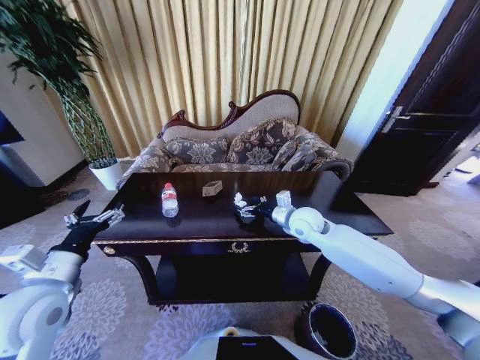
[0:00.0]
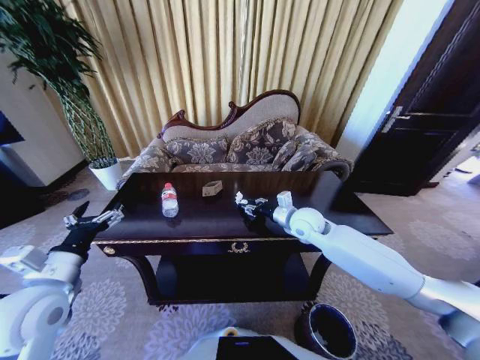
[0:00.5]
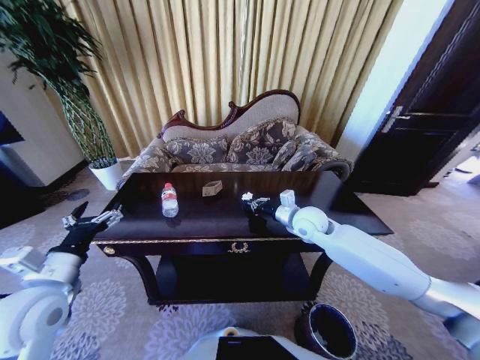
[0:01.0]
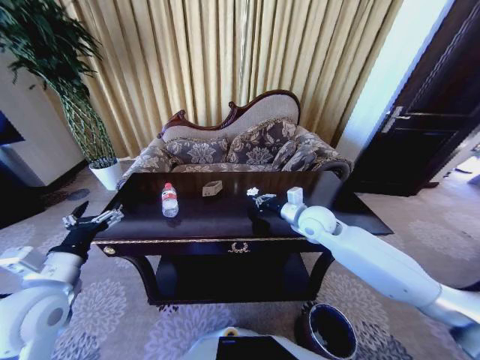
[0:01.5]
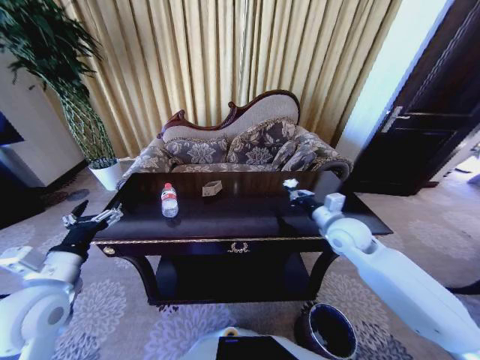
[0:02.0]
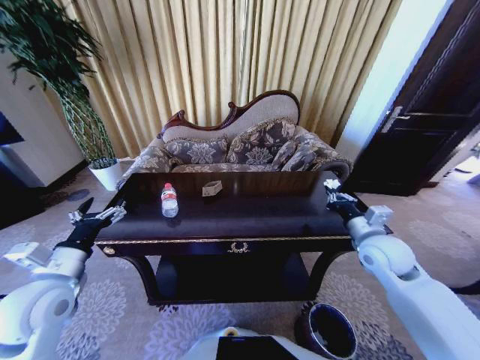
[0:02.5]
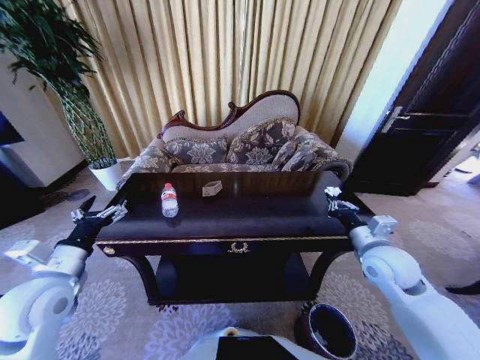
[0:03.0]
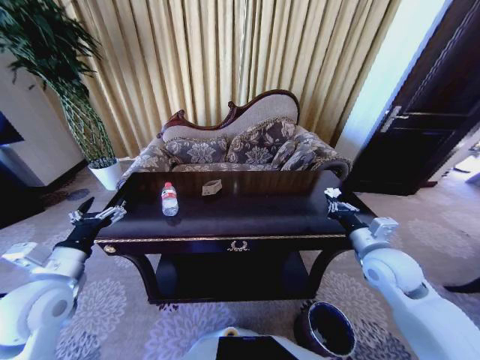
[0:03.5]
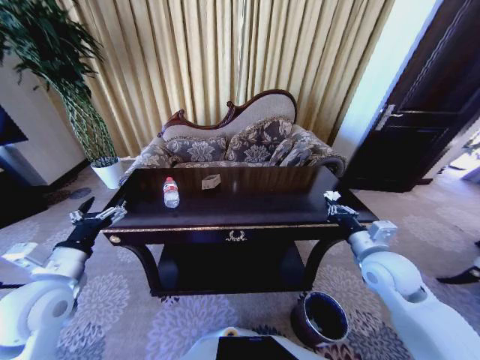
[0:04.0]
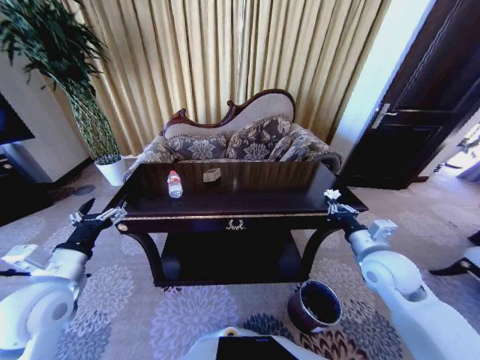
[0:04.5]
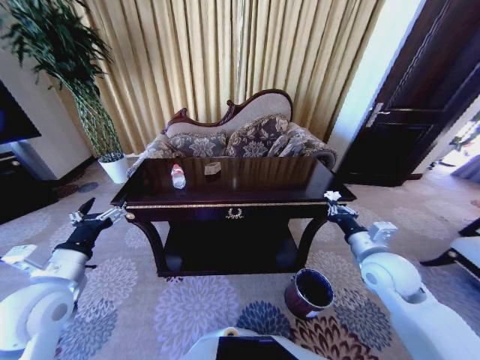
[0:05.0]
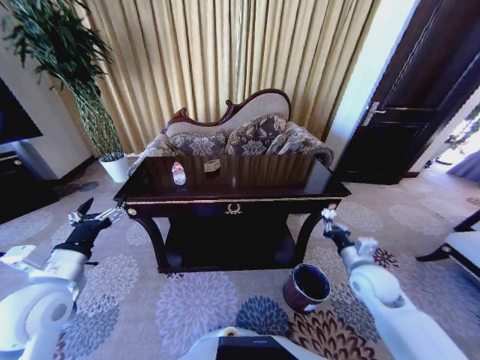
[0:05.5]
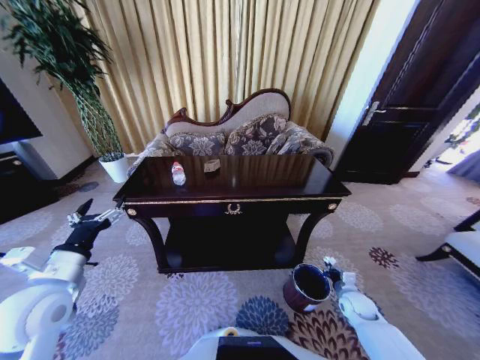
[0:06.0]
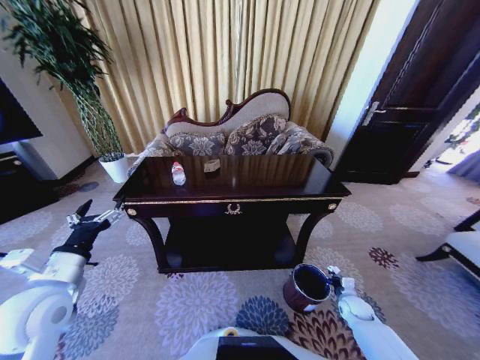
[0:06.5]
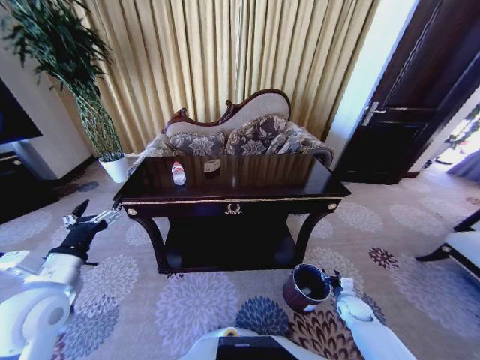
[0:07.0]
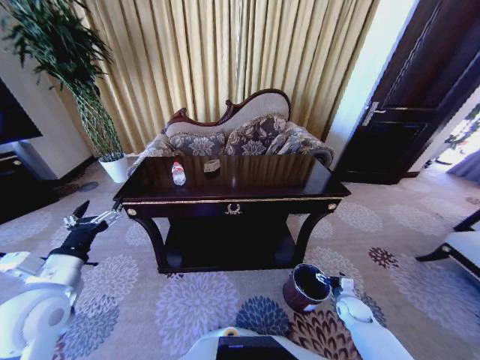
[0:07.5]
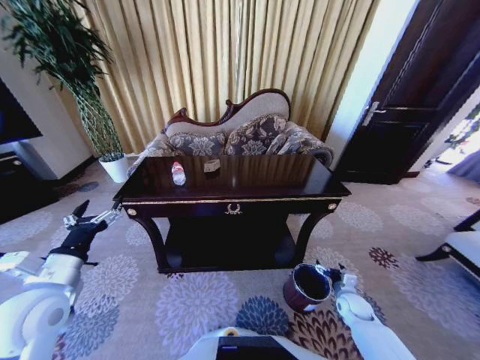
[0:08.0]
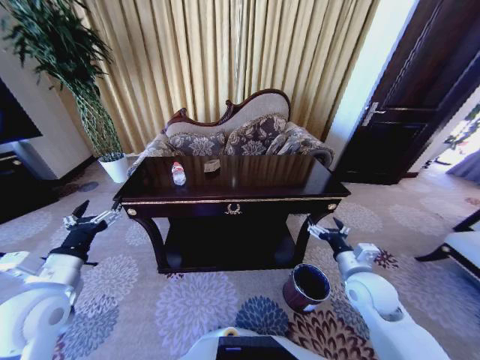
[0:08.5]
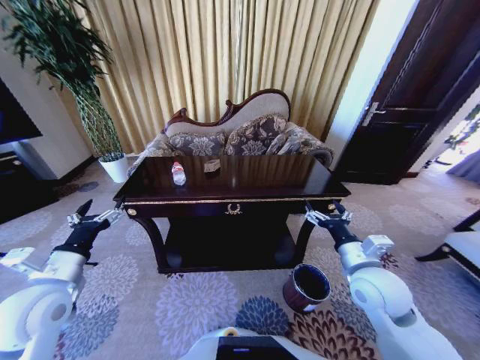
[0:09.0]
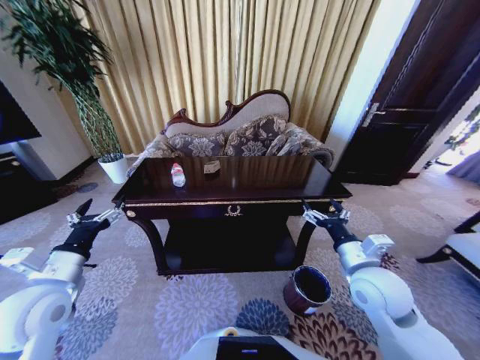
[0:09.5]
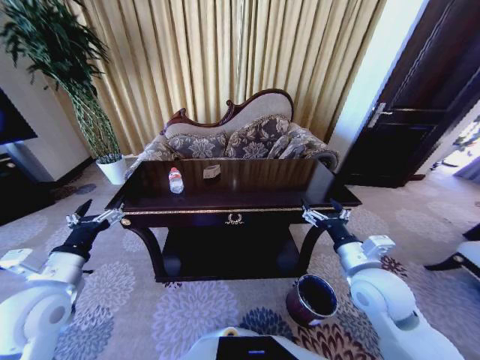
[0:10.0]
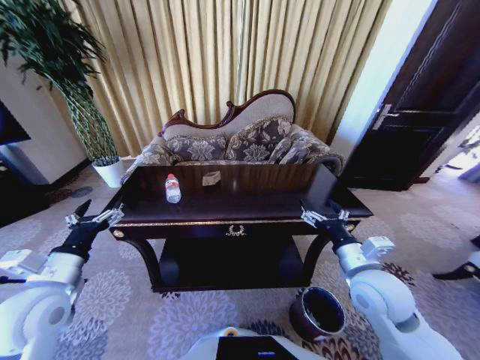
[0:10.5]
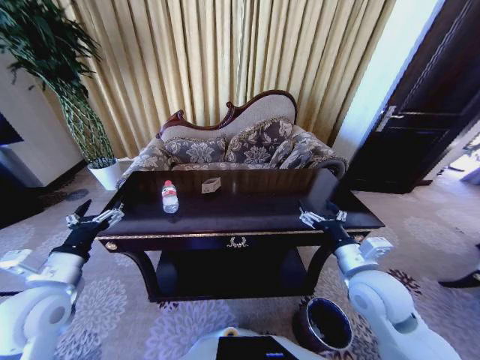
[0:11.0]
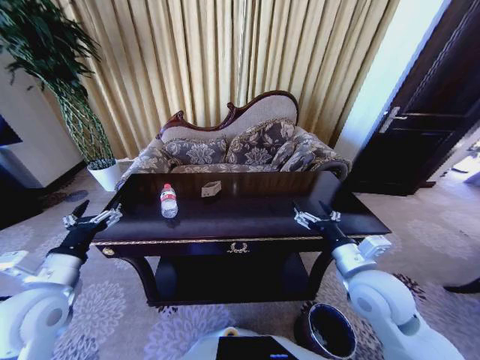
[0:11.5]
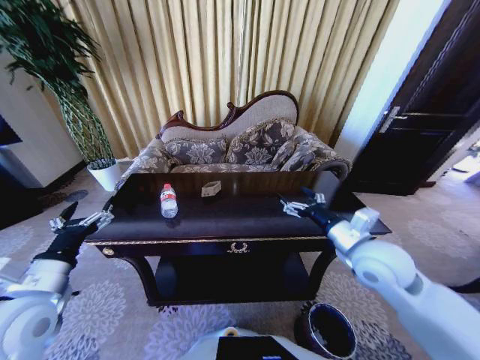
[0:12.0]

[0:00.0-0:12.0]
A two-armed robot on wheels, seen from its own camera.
Task of the whole recording: Move to the front of the table and place the trash on the table into the trash bin.
0:00.0 to 0:02.0: The right gripper goes some 10 cm to the right and backward, and closes its fingers.
0:02.0 to 0:04.0: The right gripper goes roughly 10 cm backward.
0:04.0 to 0:06.0: The right gripper moves downward, about 25 cm.
0:06.0 to 0:08.0: The right gripper opens its fingers.
0:08.0 to 0:10.0: The right gripper is displaced upward and to the left by some 30 cm.
0:10.0 to 0:12.0: The right gripper ends up about 5 cm from where it was.

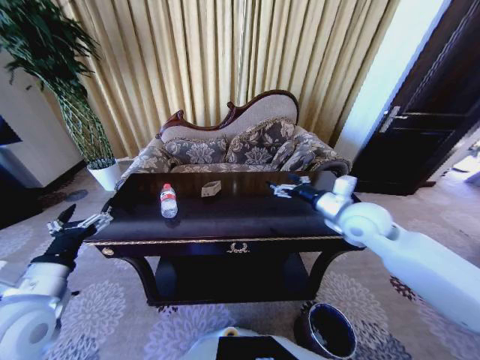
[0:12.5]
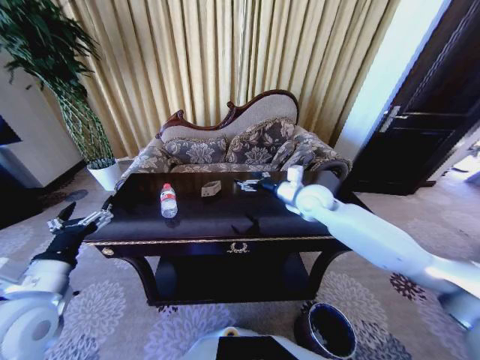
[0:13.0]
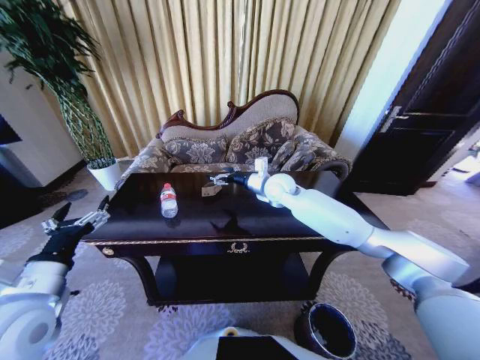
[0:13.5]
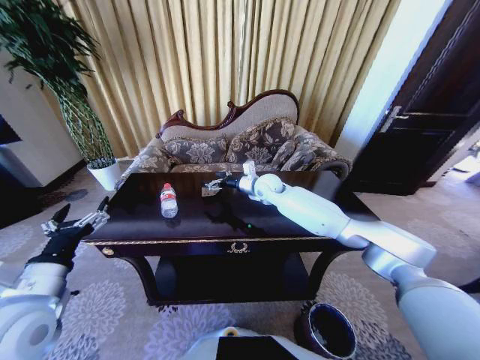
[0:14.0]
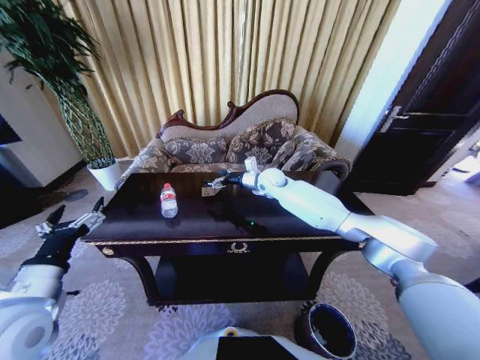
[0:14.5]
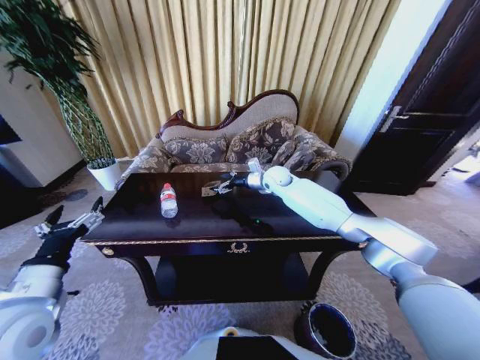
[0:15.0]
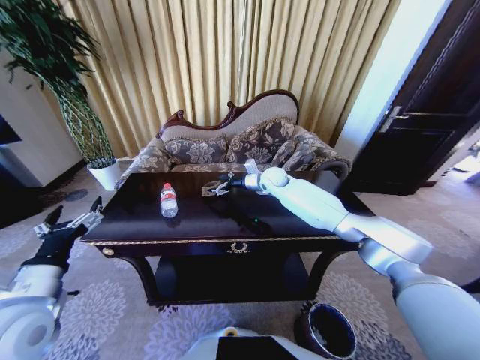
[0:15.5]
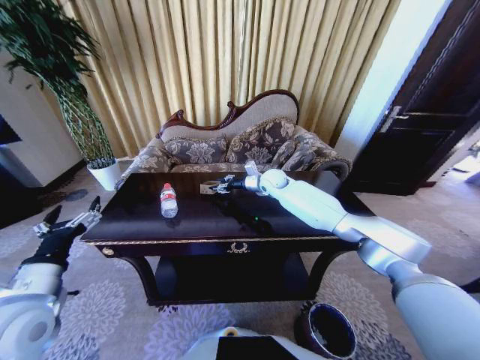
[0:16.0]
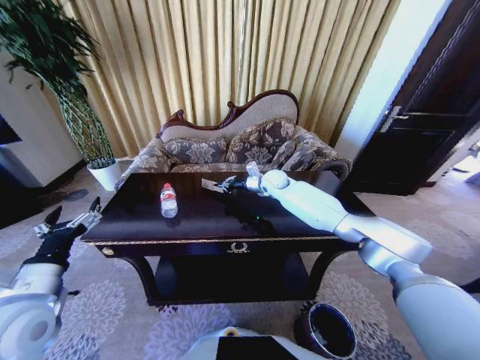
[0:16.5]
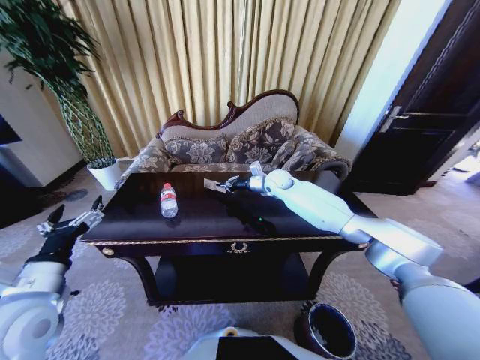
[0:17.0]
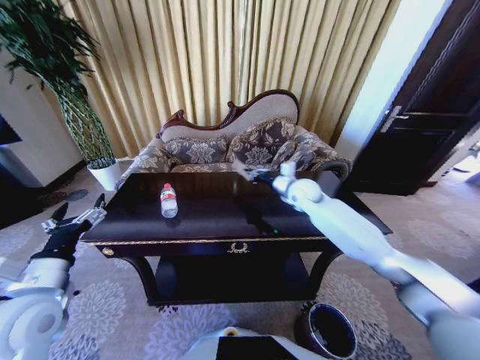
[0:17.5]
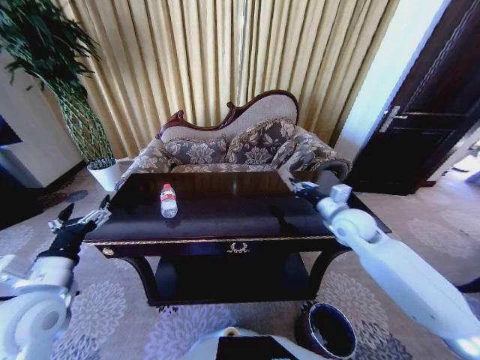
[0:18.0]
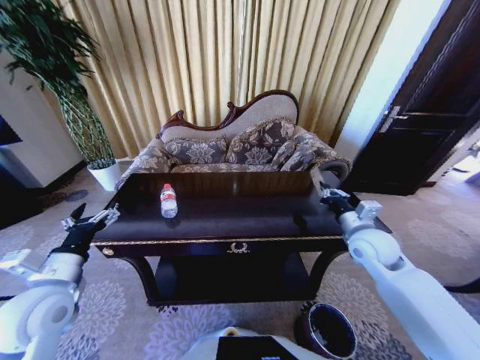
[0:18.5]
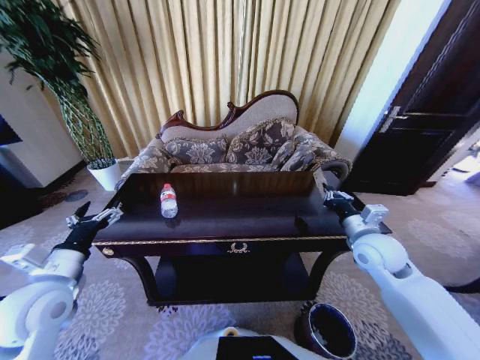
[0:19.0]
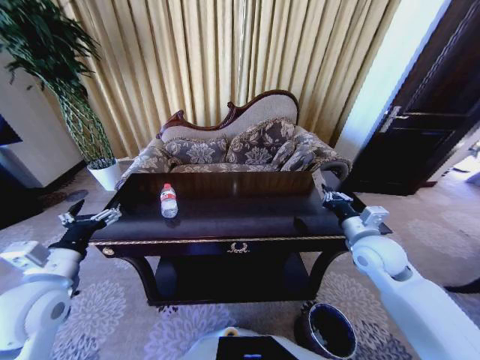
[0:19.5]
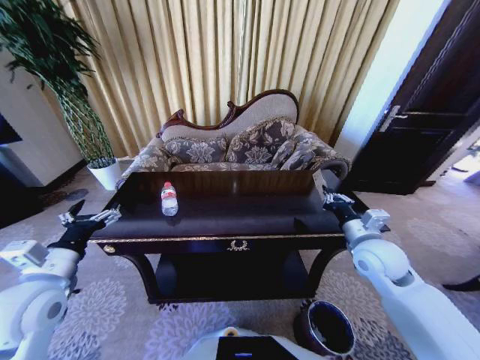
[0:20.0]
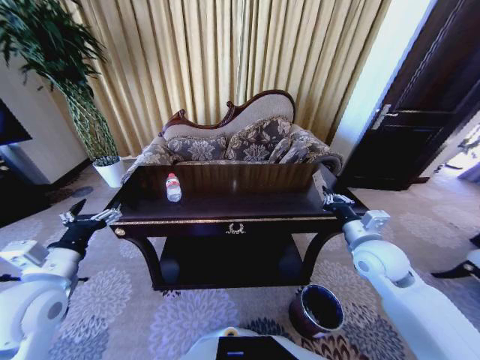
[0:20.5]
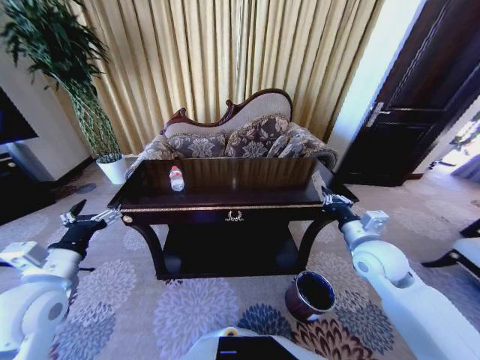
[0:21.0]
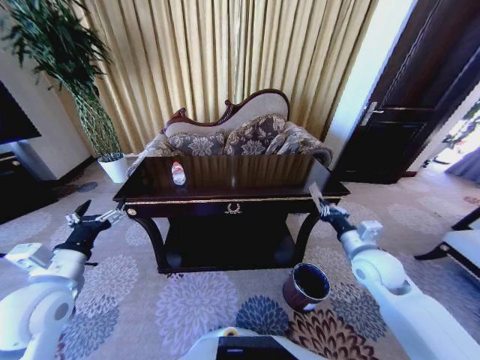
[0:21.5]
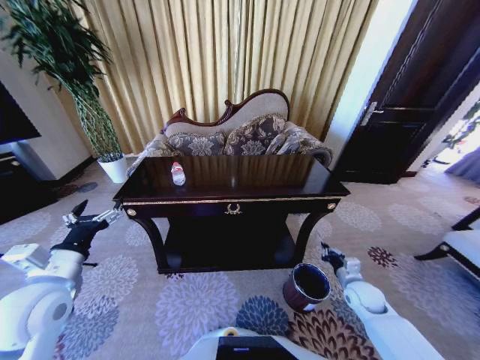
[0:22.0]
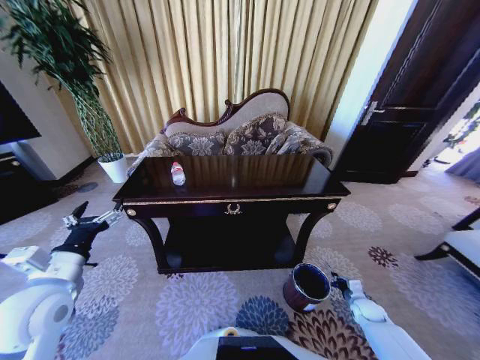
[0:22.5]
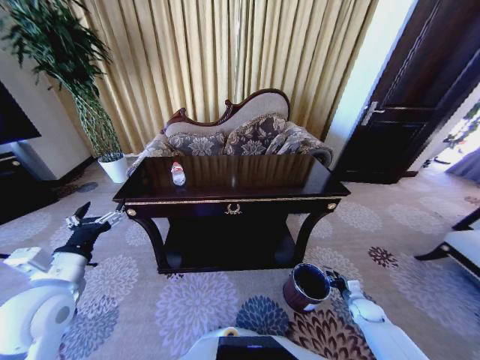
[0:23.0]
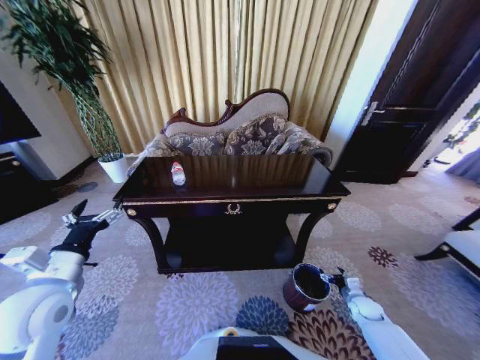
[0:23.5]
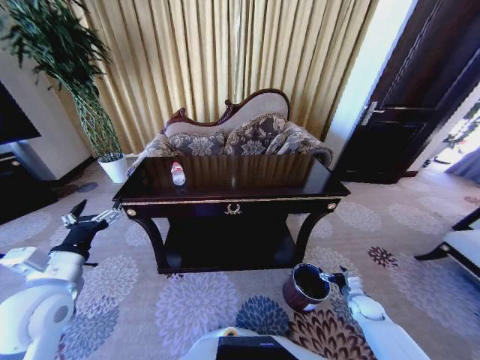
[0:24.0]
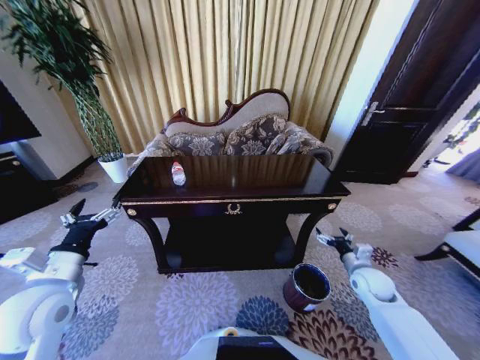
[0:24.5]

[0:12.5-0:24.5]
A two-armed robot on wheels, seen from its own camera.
Task of the whole recording: Move to the front of the table and place the trash on the table into the trash bin.
0:12.5 to 0:14.5: The right gripper moves forward and to the left, roughly 25 cm.
0:14.5 to 0:16.5: The right gripper closes its fingers.
0:16.5 to 0:18.5: The right gripper is displaced backward and to the right by some 35 cm.
0:20.5 to 0:22.5: The right gripper heads downward and to the right, covering about 35 cm.
0:22.5 to 0:24.5: The right gripper shifts some 15 cm upward, and opens.

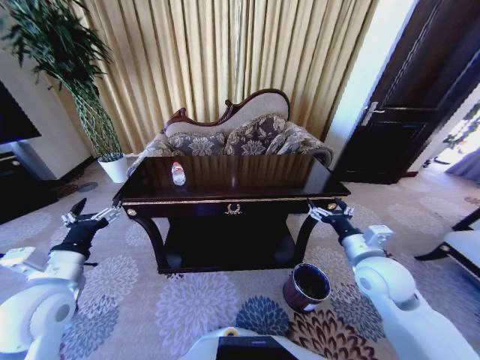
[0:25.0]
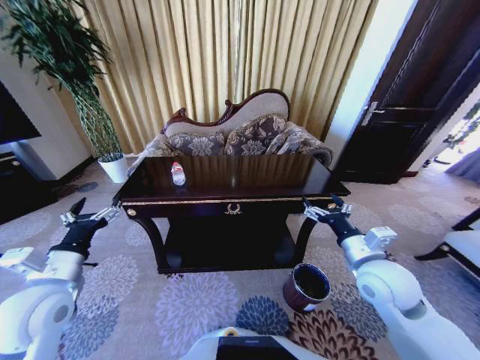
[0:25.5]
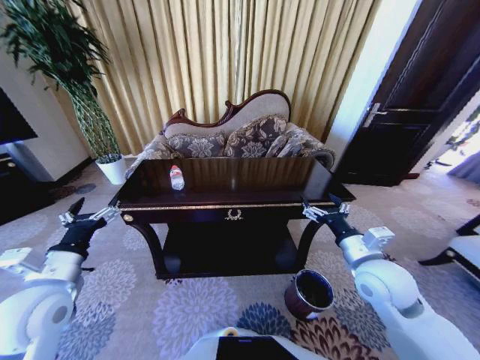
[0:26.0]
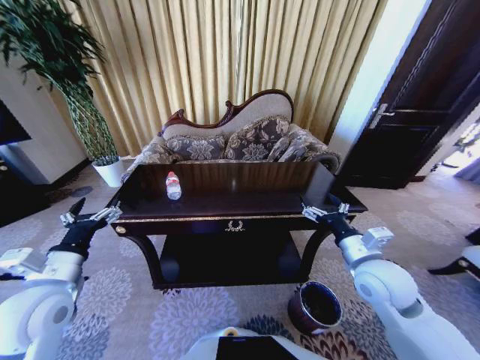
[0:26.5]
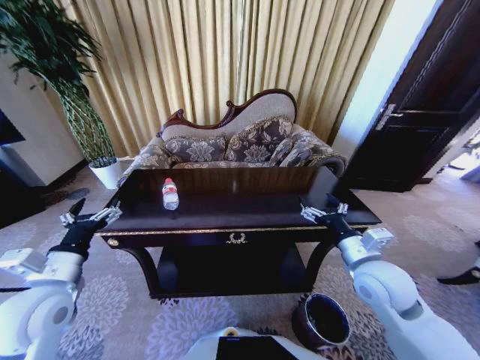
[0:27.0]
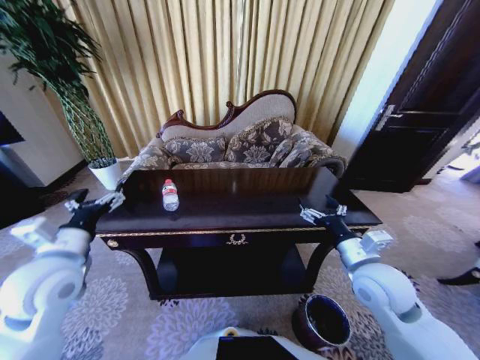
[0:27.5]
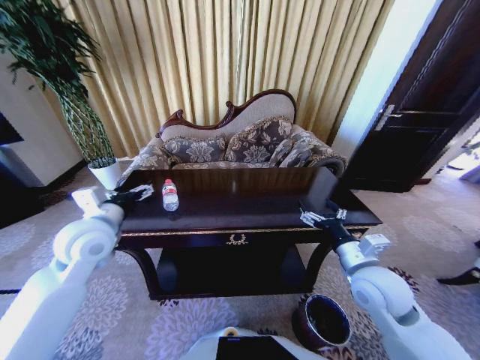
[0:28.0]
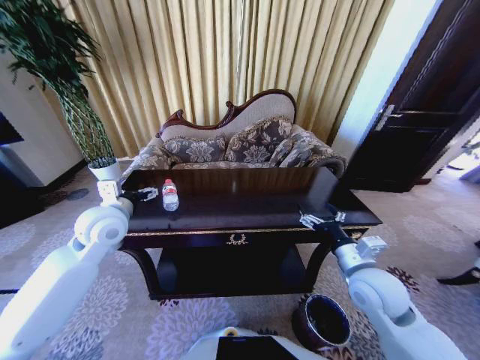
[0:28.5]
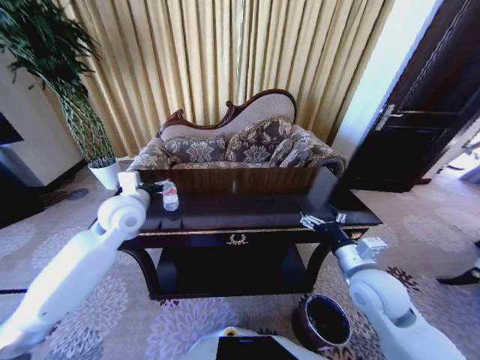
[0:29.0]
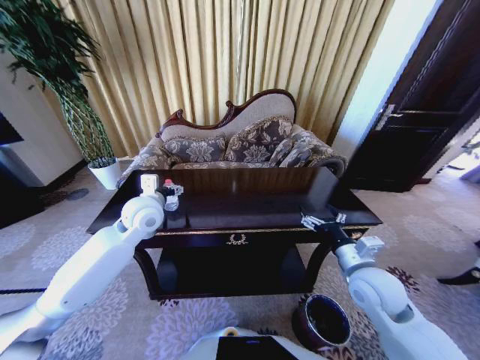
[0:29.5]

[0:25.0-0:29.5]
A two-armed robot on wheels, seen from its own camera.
Task of the whole recording: Move to the front of the table and place the trash on the table into the trash bin.
0:27.0 to 0:29.5: The left gripper goes roughly 25 cm forward and to the right.
